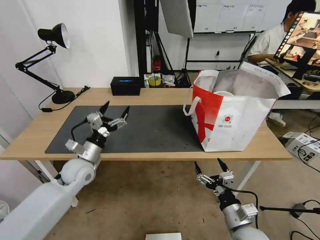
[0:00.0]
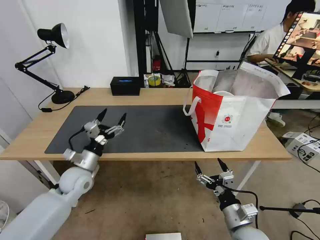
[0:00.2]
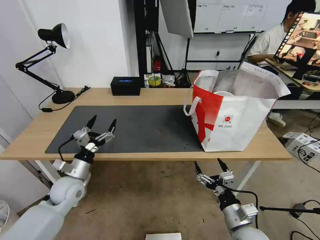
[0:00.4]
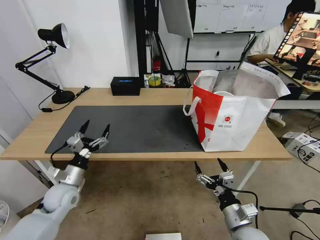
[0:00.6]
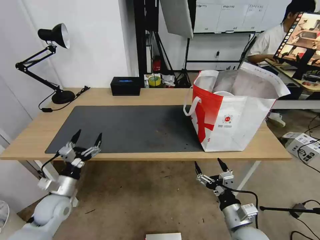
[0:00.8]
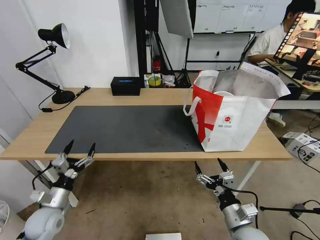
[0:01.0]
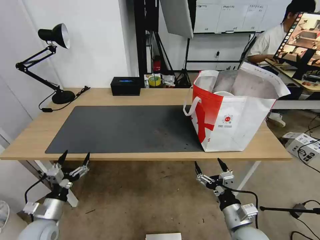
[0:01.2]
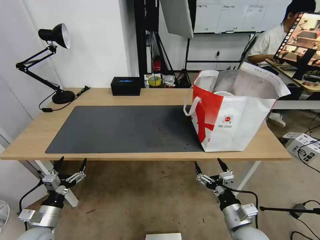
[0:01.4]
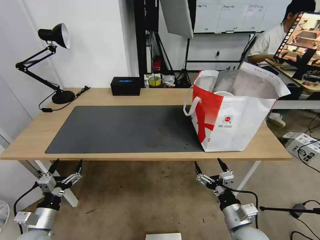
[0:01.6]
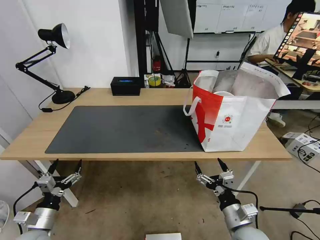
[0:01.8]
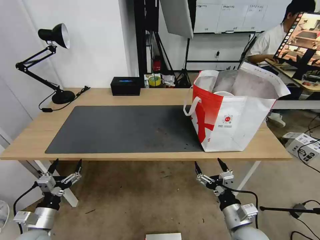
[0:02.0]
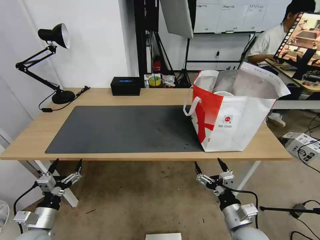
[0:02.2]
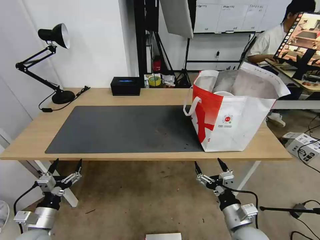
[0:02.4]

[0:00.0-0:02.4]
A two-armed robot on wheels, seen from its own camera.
Task of the whole recording: Pick up the trash from the table and place it into the takeout bag.
0:00.0 to 0:01.2: The left gripper is displaced backward, downward and to the left by approximately 20 cm.
0:01.2 to 0:02.4: The grippers move only a little.

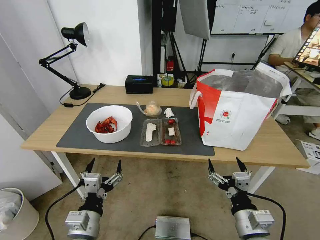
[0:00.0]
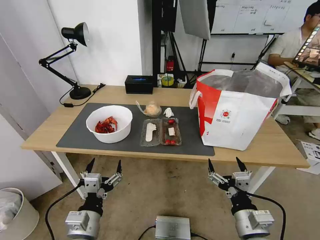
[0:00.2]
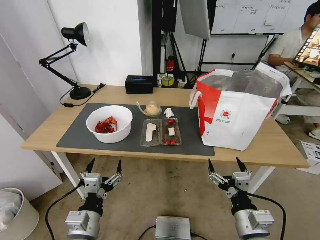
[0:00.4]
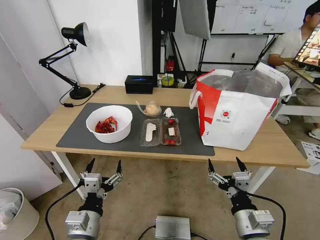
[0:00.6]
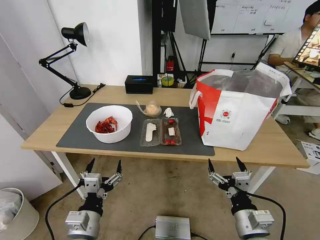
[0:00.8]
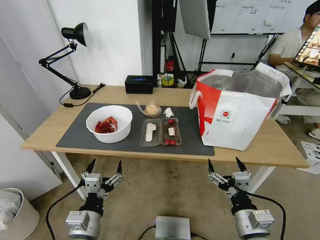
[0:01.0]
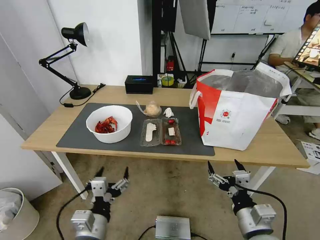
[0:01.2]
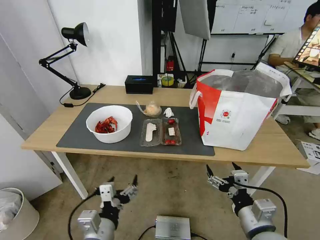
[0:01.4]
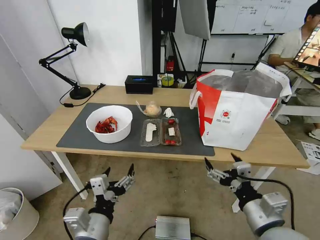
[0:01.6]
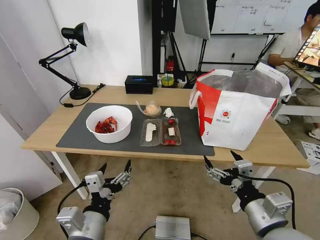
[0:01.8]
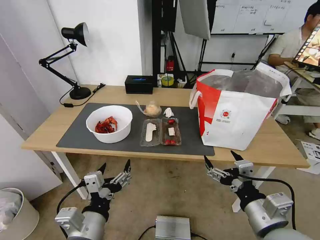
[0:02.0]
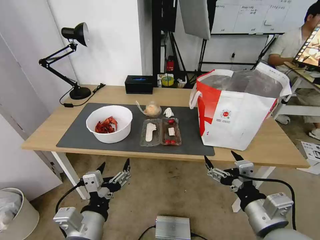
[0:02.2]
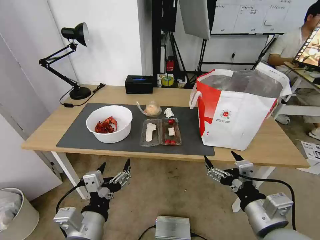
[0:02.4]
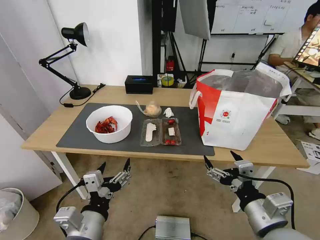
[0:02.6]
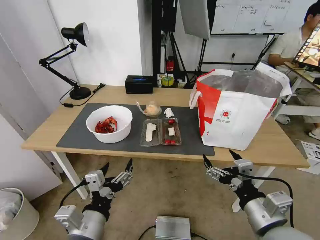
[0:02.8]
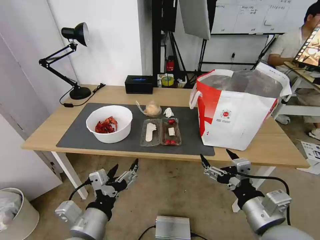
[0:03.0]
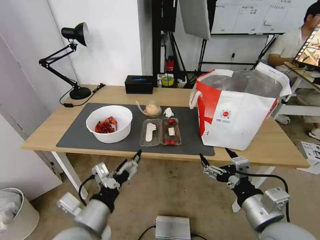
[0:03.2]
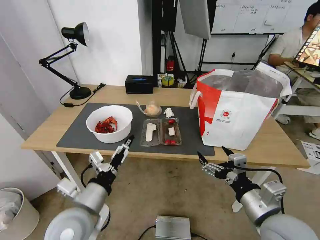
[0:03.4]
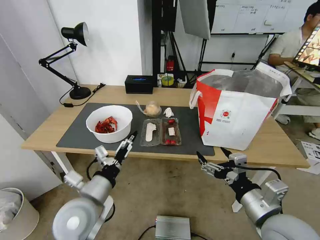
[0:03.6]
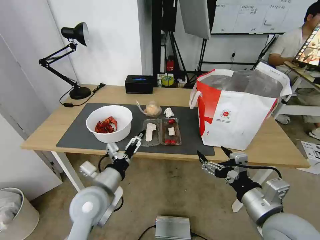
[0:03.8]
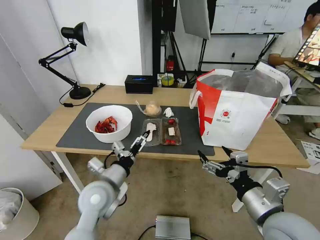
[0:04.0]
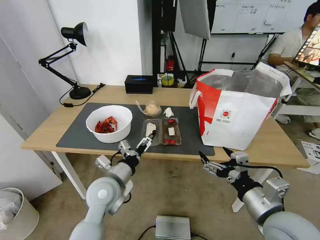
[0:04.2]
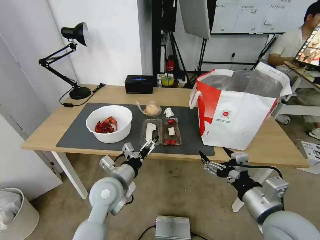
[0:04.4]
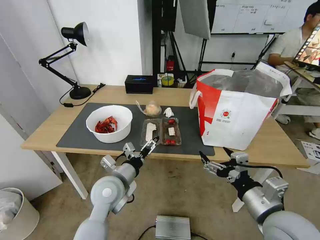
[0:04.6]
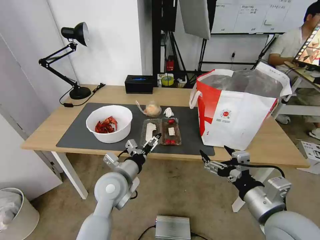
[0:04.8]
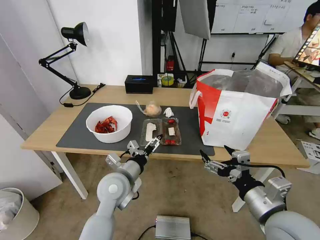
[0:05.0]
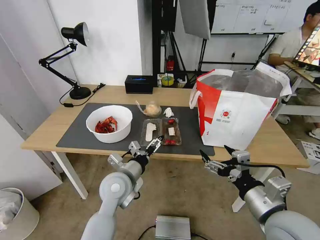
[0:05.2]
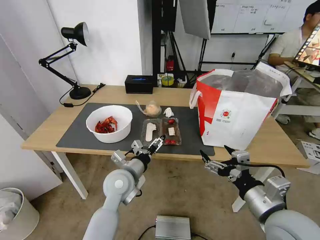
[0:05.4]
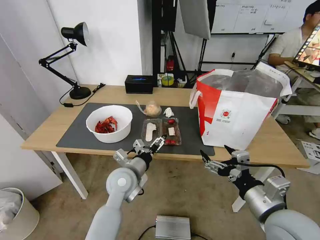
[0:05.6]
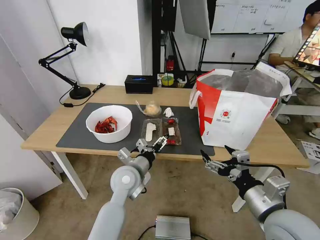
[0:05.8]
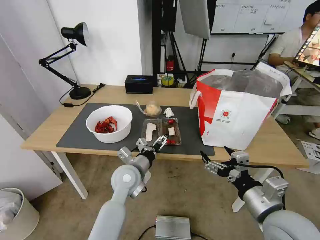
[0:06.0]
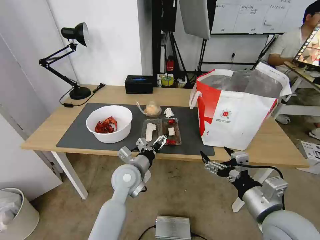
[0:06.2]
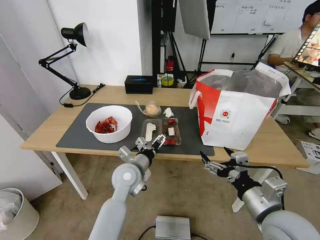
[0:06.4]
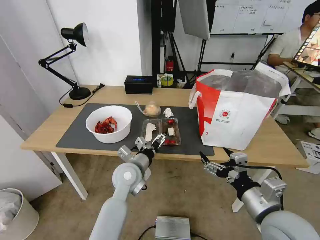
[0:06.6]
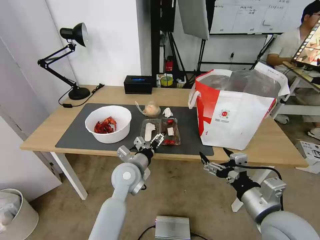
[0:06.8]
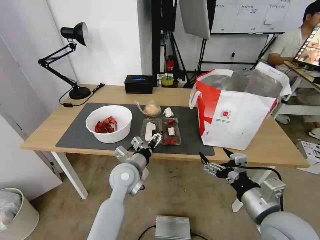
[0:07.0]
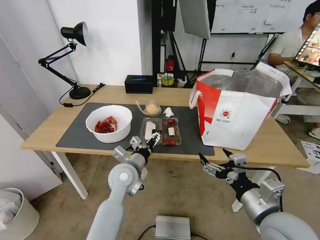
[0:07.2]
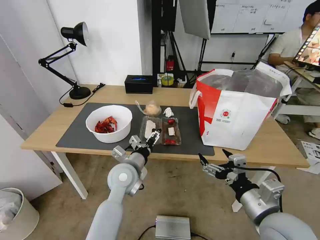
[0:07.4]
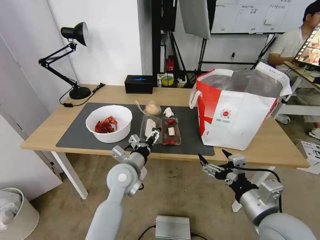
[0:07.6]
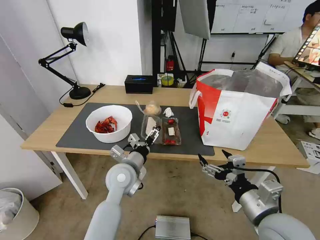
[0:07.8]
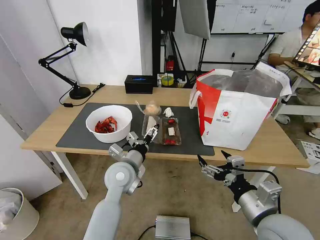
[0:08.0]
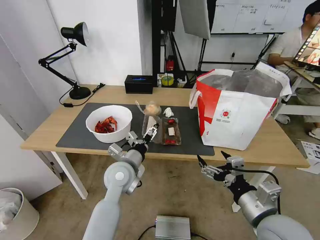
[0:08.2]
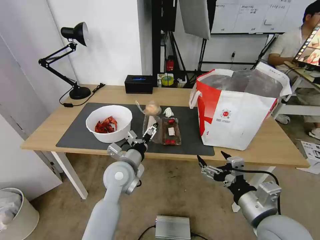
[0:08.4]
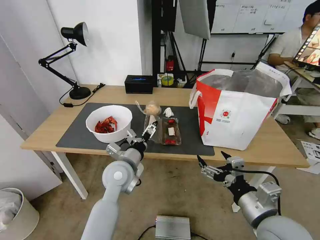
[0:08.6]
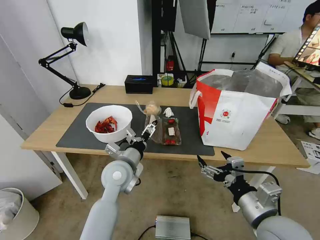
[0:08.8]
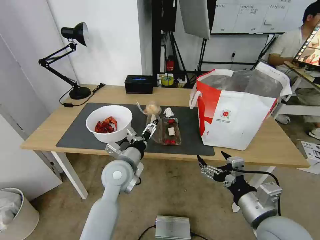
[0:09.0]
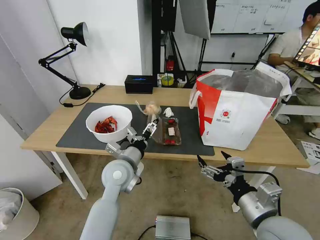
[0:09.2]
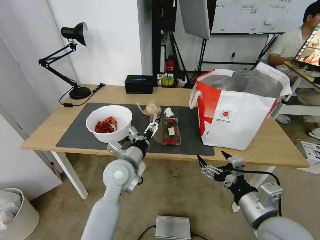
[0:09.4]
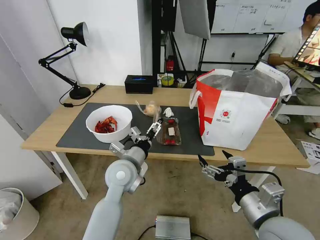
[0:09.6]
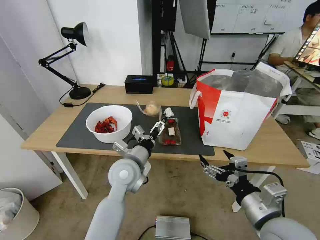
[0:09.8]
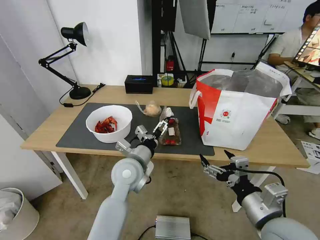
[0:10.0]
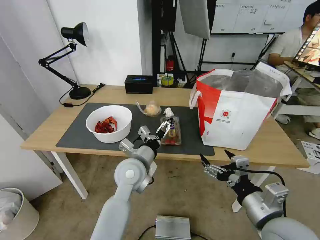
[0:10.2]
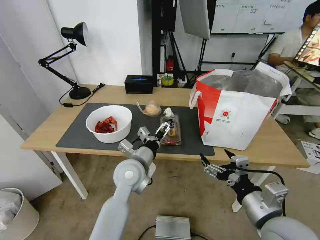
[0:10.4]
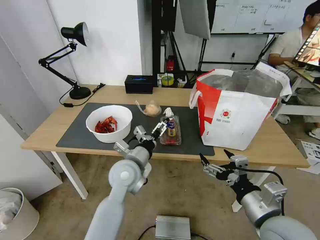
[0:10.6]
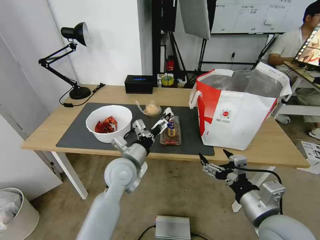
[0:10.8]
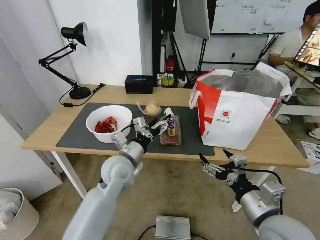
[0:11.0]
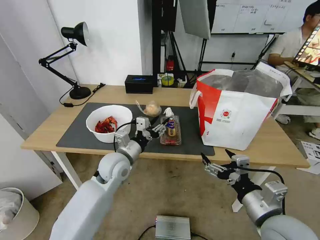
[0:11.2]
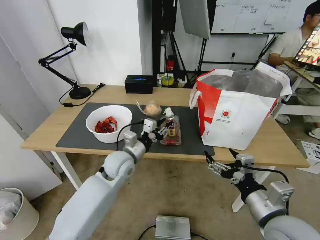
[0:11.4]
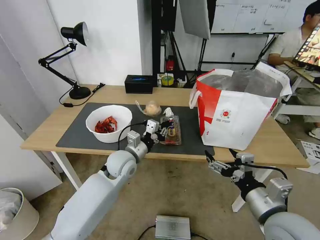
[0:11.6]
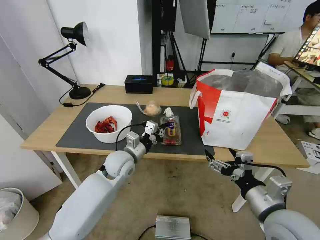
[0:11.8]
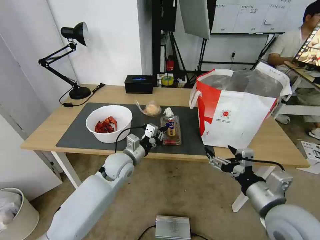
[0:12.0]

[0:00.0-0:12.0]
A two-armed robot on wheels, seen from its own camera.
Task of the whole recording: Pick up the trash from the table and place it into the takeout bag.
0:01.6 to 0:03.0: The grippers move only a little.
0:03.0 to 0:04.4: The left gripper travels forward by roughly 15 cm.
0:04.4 to 0:06.0: The left gripper changes place by some 5 cm.
0:06.0 to 0:10.4: The grippers move only a little.
0:10.4 to 0:12.0: The left gripper goes approximately 10 cm forward and to the left, and closes up.

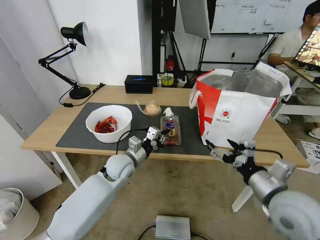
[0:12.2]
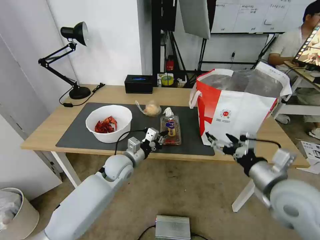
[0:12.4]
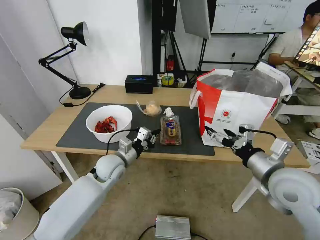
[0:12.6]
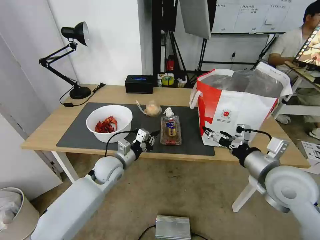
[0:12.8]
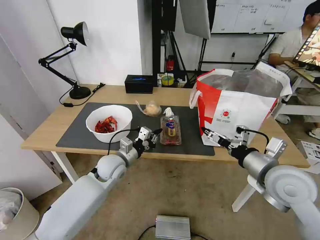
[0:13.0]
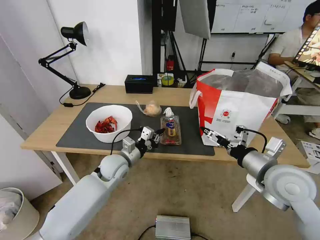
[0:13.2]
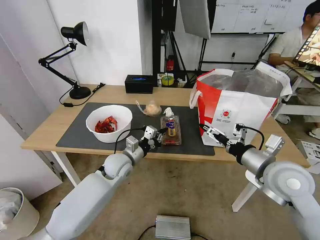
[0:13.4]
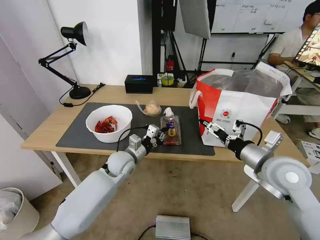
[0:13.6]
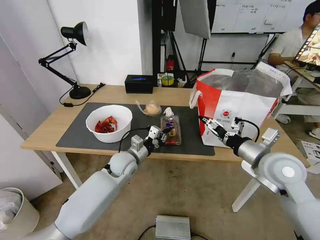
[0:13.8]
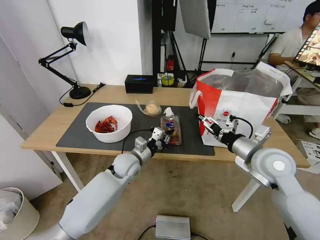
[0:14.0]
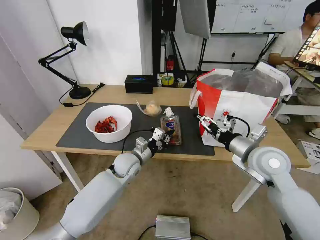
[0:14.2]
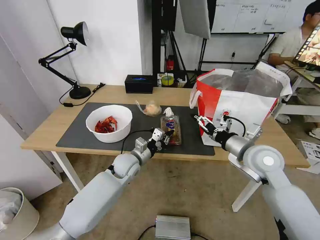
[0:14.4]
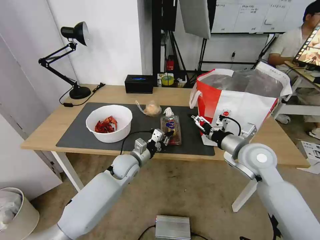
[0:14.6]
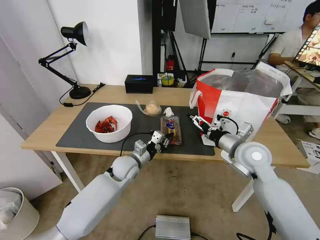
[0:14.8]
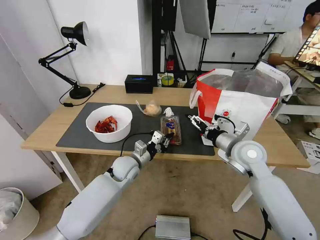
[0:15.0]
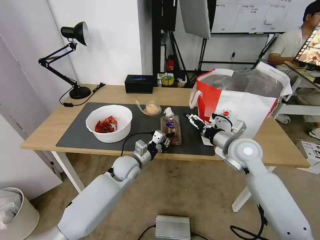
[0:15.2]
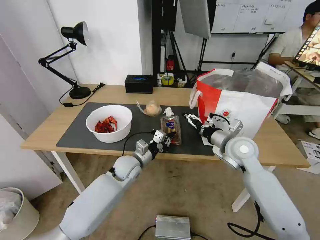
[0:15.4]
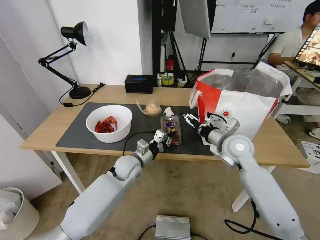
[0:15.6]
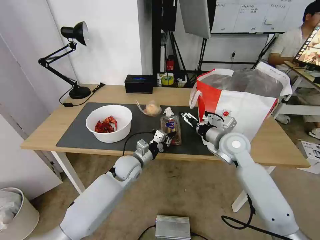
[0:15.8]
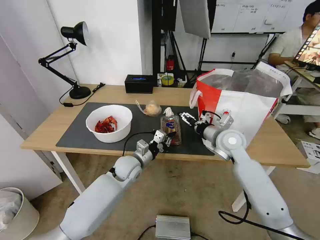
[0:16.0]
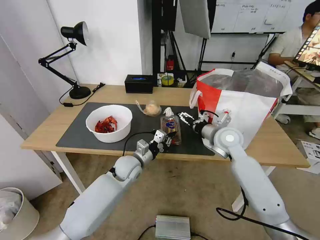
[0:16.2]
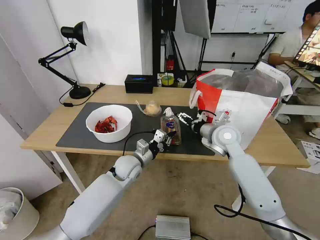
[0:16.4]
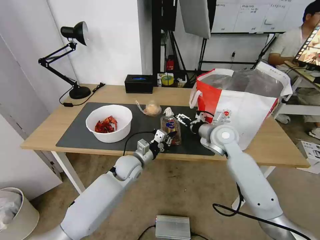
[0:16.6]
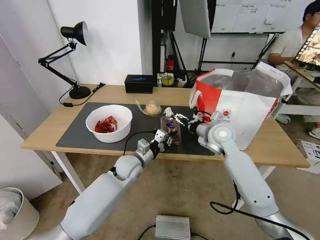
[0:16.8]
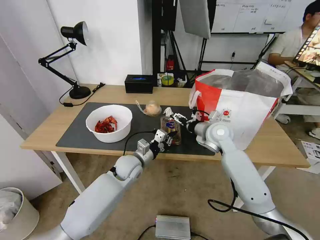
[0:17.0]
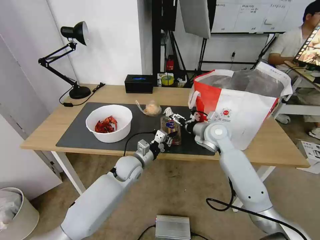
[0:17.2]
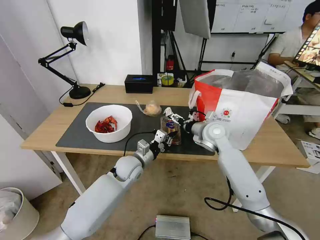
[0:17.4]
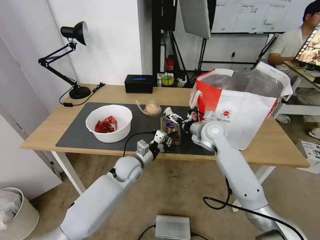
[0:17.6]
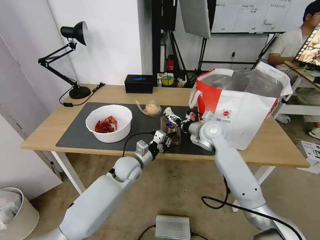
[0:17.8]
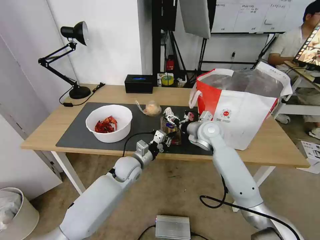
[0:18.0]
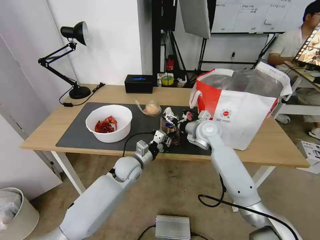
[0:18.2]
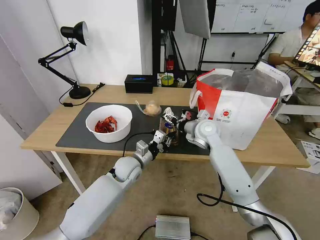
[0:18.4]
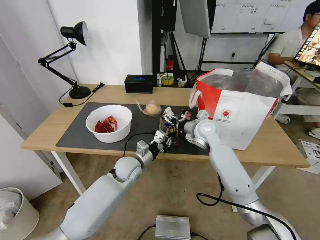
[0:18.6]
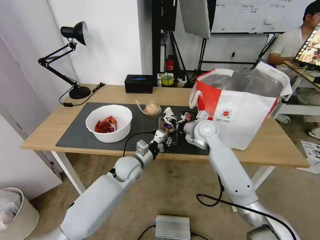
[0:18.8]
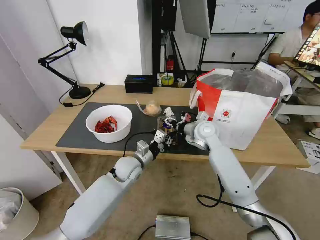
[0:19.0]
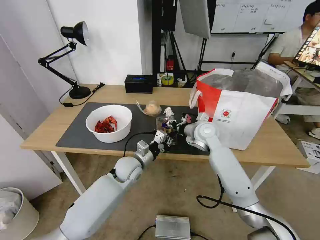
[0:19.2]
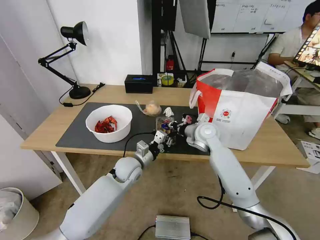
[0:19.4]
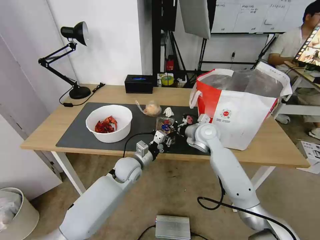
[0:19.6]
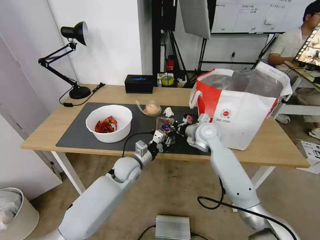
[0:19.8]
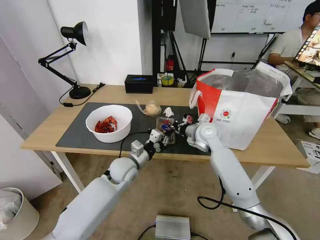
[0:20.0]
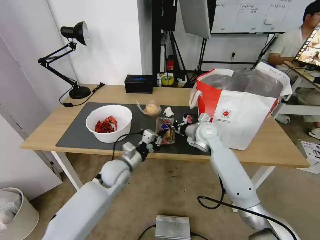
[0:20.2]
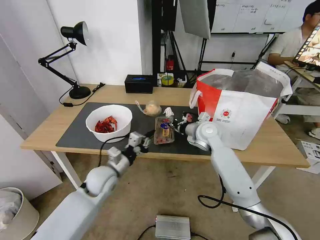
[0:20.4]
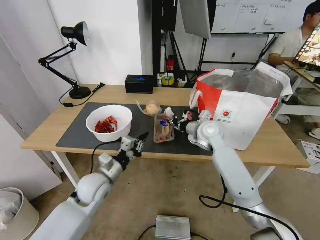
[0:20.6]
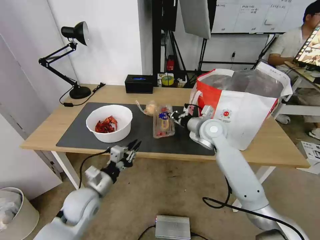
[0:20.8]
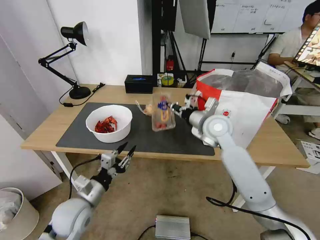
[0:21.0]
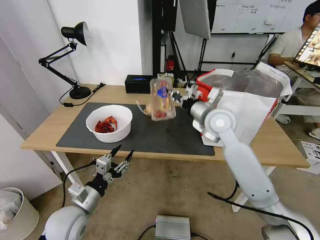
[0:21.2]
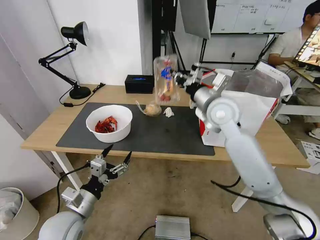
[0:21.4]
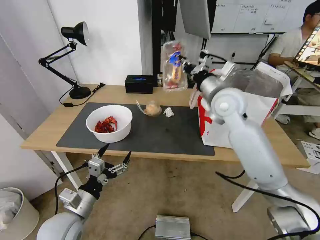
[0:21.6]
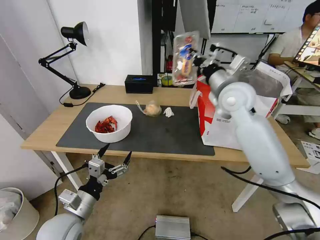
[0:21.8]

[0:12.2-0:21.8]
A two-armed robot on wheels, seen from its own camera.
Task of the whole recording: Pick up the trash from the table and place it into the takeout bag.
0:12.2 to 0:13.8: The right gripper heads forward, covering some 10 cm.
0:13.8 to 0:15.4: The right gripper shifts roughly 10 cm forward.
0:15.4 to 0:17.0: The right gripper travels forward by approximately 5 cm.
0:17.0 to 0:18.6: There are only small adjustments of the grippers.
0:18.6 to 0:20.2: The right gripper closes up. Meanwhile the left gripper ends up roughly 5 cm from where it was.
0:20.2 to 0:21.8: The right gripper shifts some 20 cm upward; the left gripper is displaced backward and to the left by about 20 cm, and opens its fingers.
